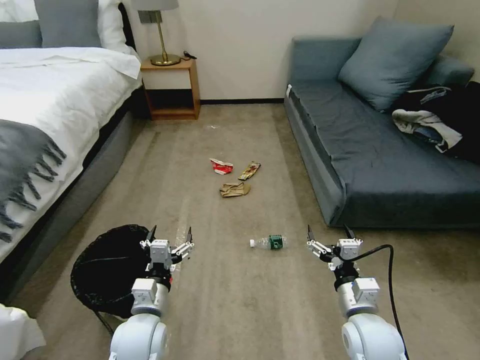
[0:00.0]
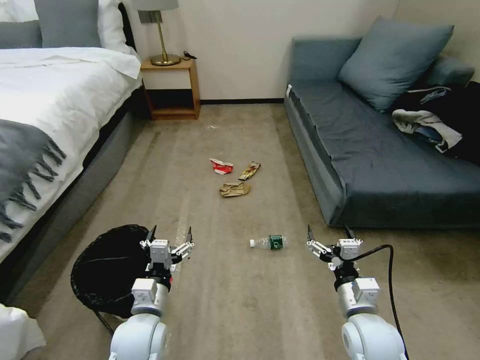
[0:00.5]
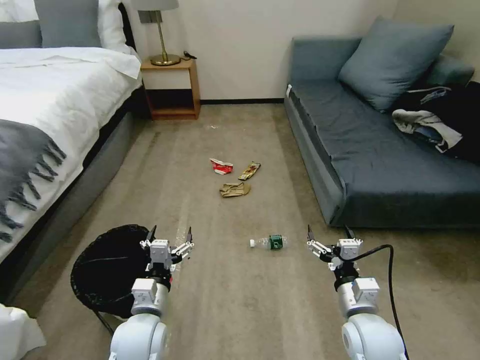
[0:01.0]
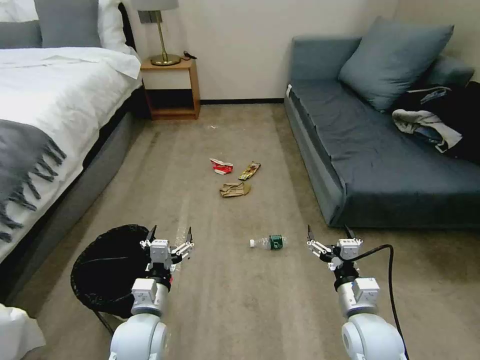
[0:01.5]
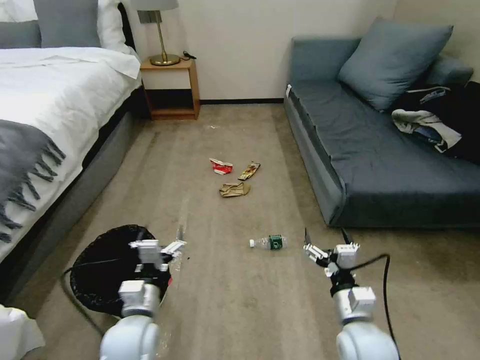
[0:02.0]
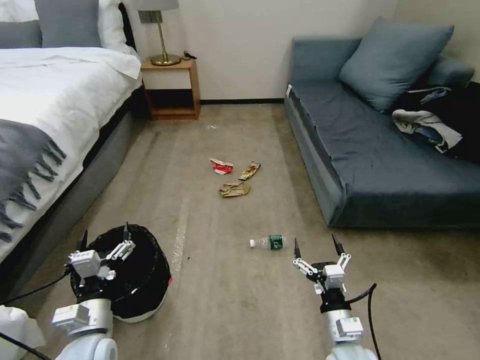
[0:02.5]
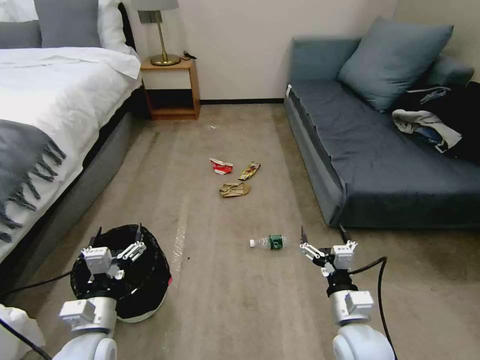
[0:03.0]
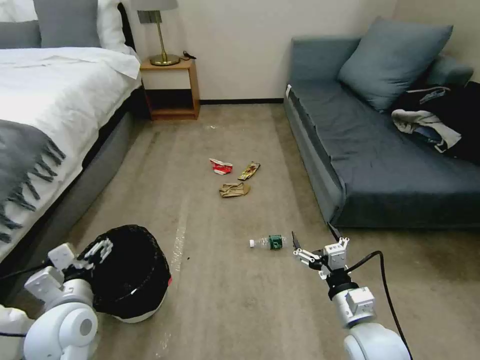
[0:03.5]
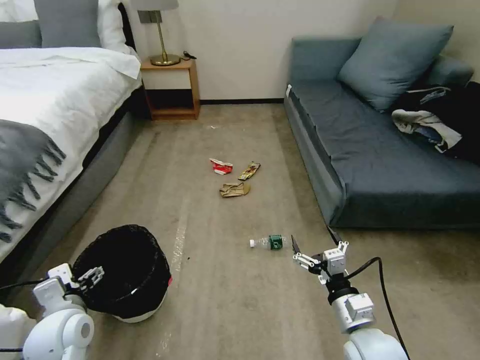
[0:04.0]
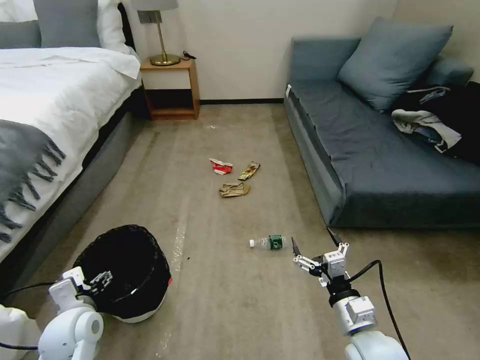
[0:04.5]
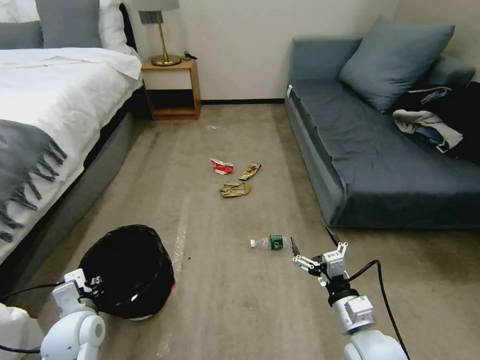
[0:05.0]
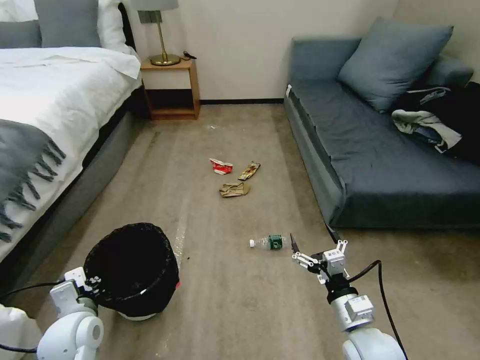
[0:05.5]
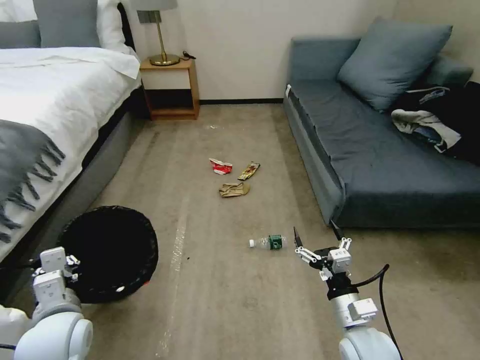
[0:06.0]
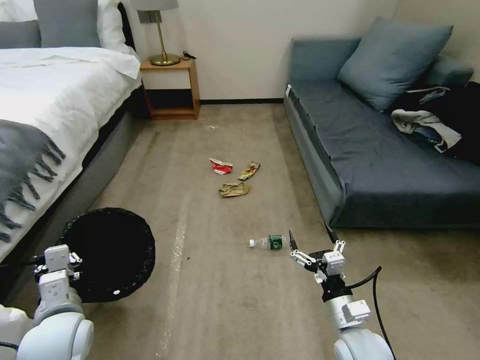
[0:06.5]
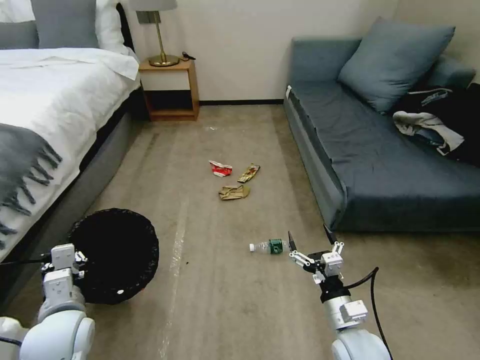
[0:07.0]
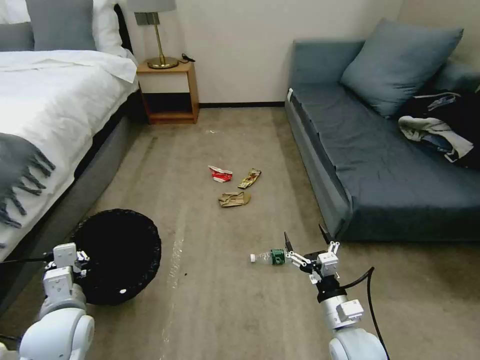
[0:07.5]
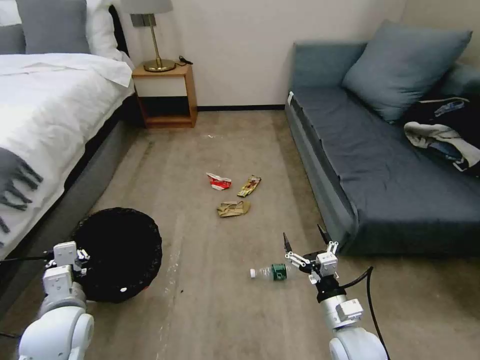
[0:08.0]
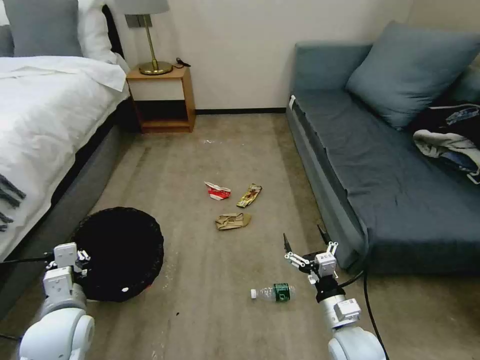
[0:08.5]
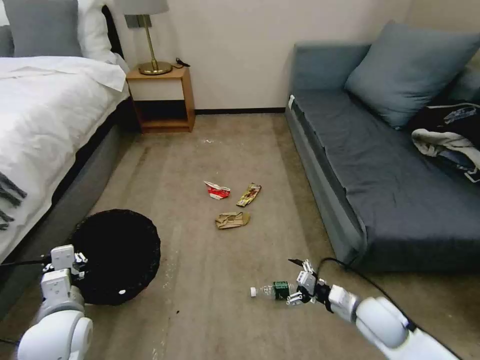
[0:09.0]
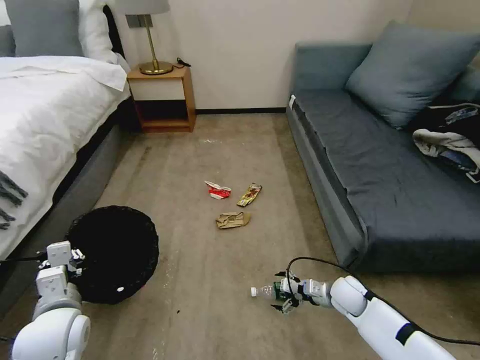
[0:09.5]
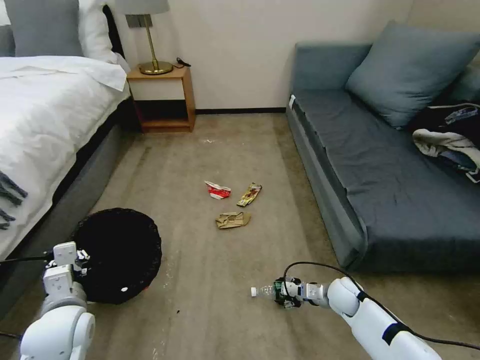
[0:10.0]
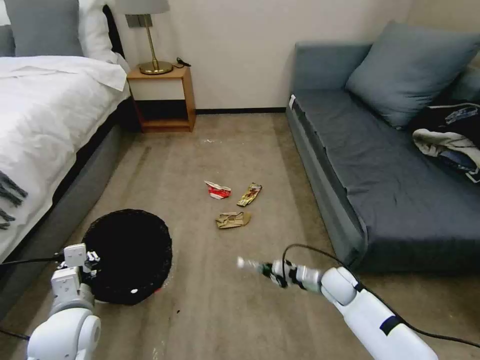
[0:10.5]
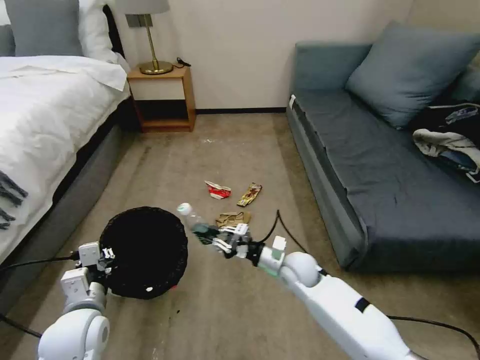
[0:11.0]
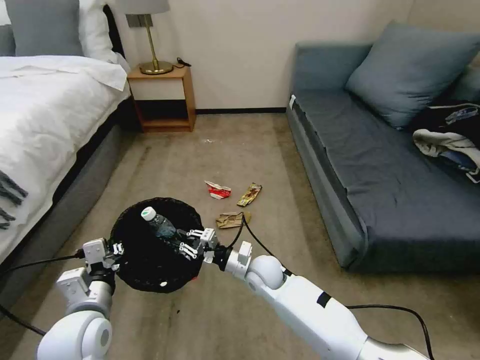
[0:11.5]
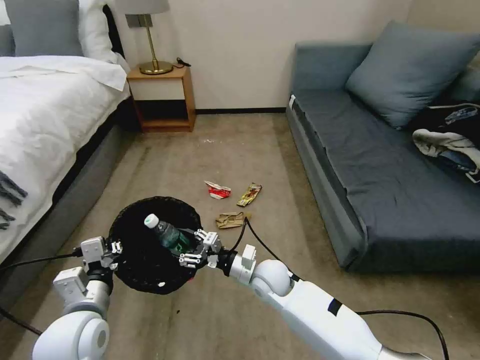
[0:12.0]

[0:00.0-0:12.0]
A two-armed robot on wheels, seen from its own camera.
Task of the whole recording: Pick up the trash bin, then pick up the garbage on the floor and place it into the trash bin.
0:02.0 to 0:04.0: The left gripper heads to the left, covering approximately 10 cm.
0:04.0 to 0:06.0: The left gripper closes up.
0:08.0 to 0:10.0: The right gripper goes about 20 cm forward, downward and to the right.
0:10.0 to 0:12.0: The right gripper travels to the left and upward by approximately 25 cm, and closes, then opens again.

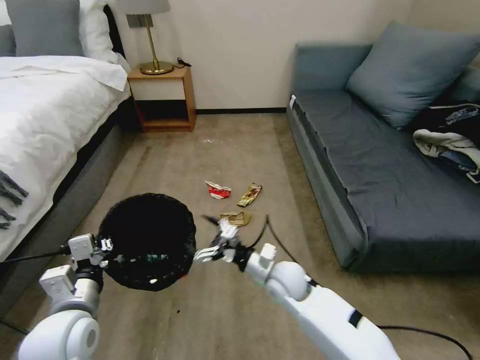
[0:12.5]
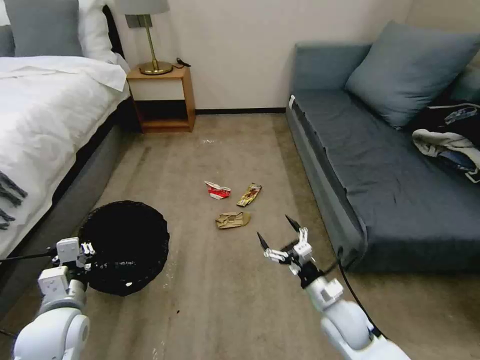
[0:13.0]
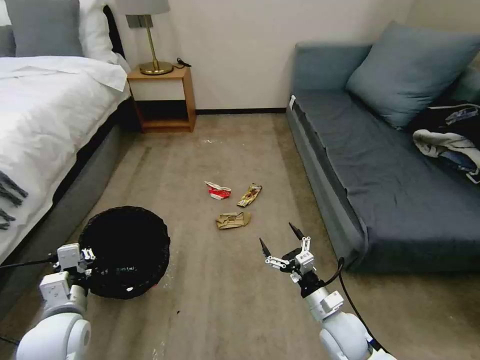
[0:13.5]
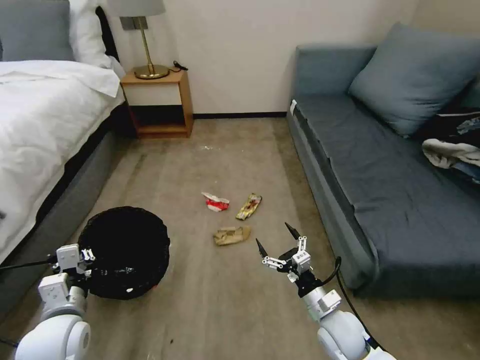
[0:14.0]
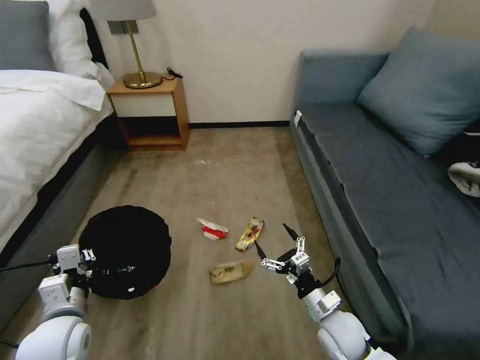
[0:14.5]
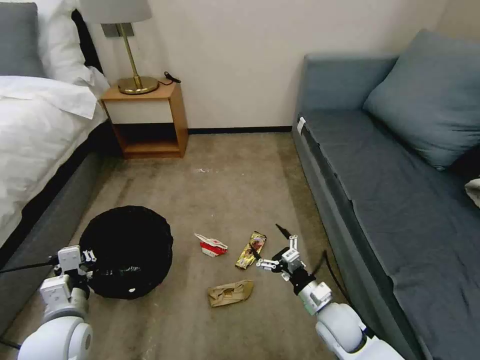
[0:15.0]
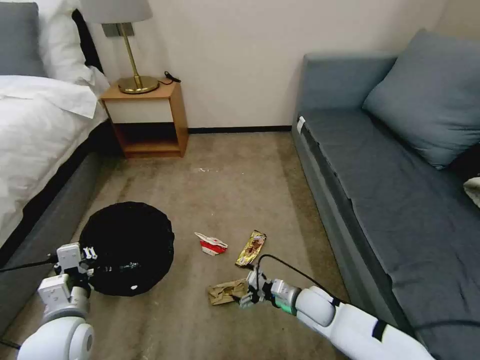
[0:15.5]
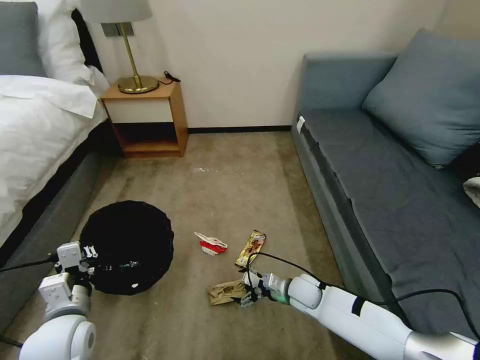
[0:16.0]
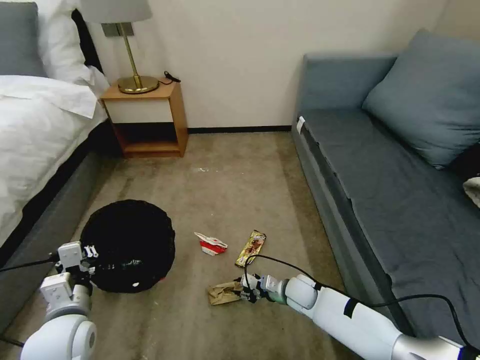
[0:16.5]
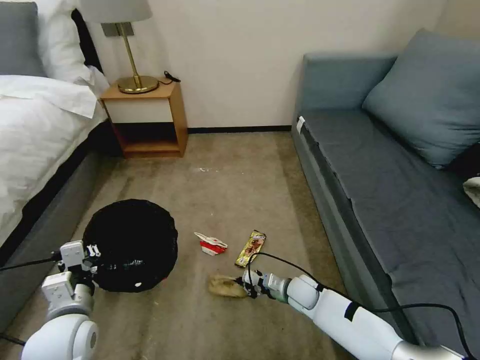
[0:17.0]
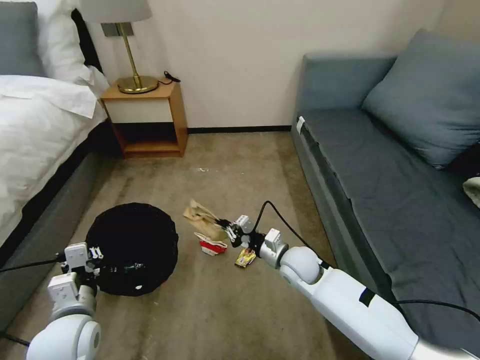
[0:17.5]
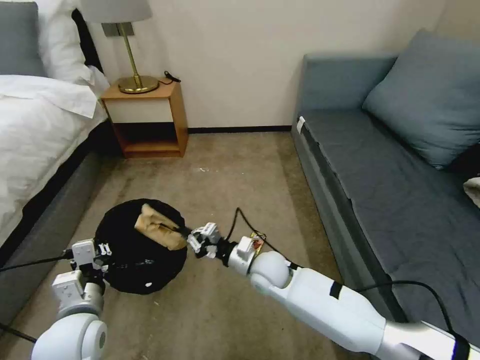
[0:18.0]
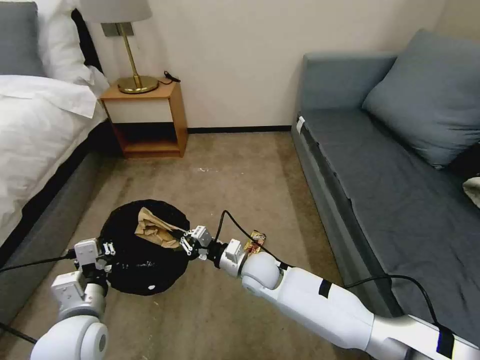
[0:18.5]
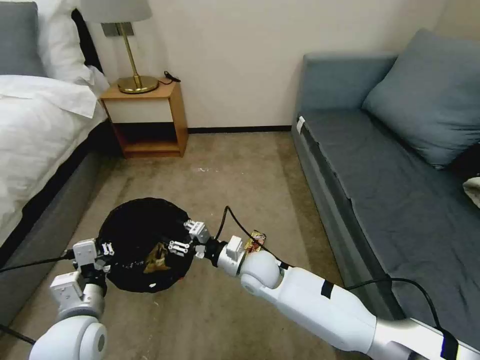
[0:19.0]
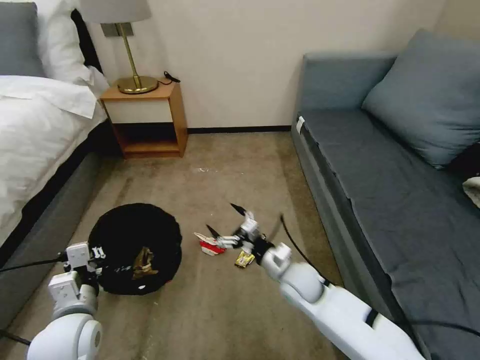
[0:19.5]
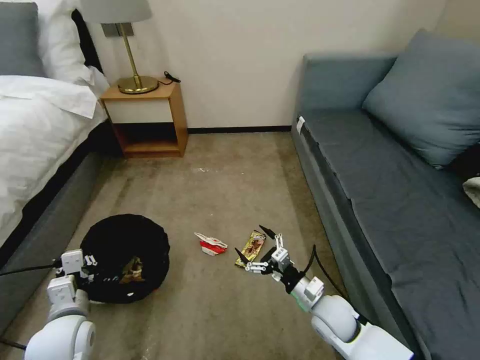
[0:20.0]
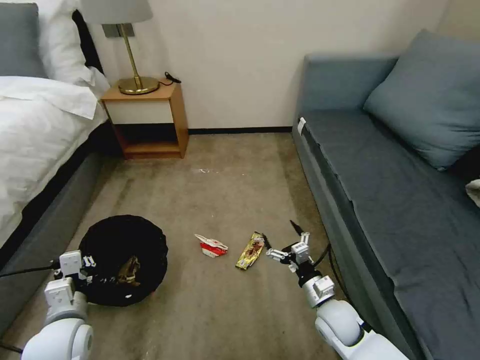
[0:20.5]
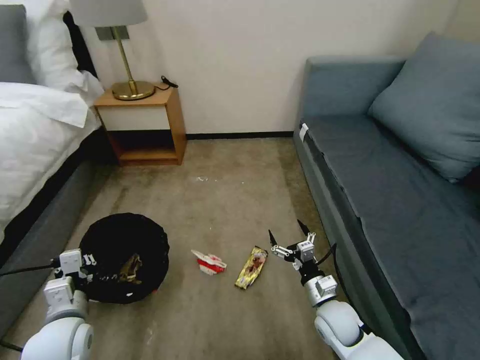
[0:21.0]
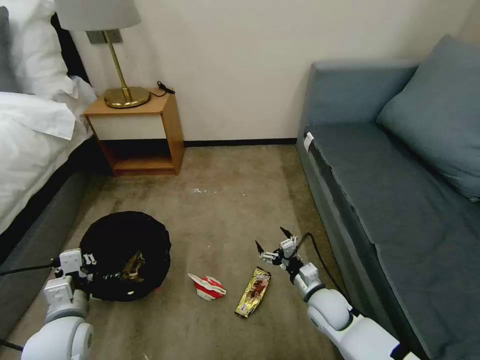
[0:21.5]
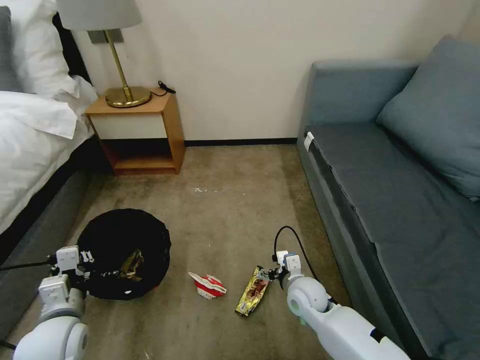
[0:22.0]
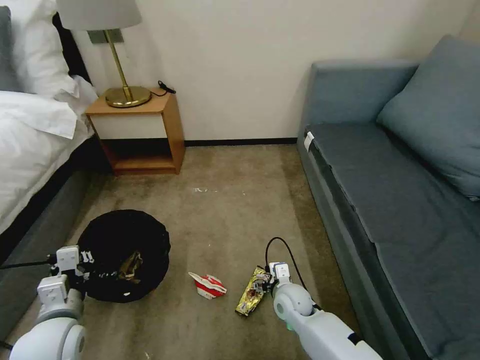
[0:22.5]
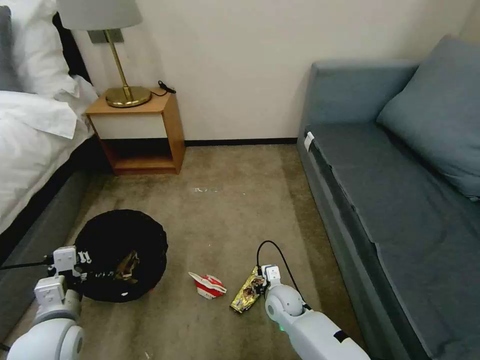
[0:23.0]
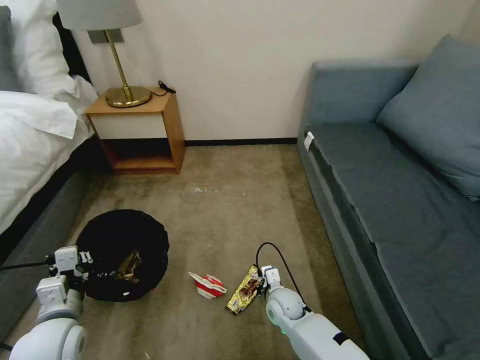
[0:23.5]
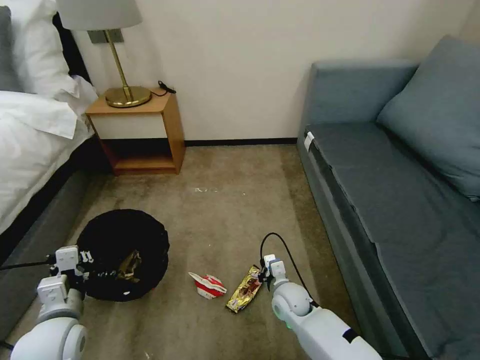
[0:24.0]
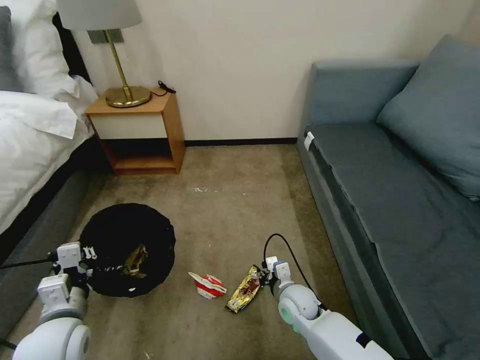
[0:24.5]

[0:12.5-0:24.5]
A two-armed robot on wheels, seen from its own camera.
Task of the whole recording: Pick up the trash bin, then pick up the garbage on the floor and place it into the trash bin.
0:12.5 to 0:14.5: The left gripper changes place by about 5 cm. The right gripper goes approximately 15 cm to the right and backward.
0:14.5 to 0:16.5: The right gripper is displaced forward and downward by about 15 cm, and closes its fingers.
0:16.5 to 0:18.5: The right gripper is displaced to the left and upward by some 20 cm, and closes up.
0:18.5 to 0:20.5: The right gripper is displaced to the right and backward by some 20 cm, and opens its fingers. Meanwhile the left gripper shifts some 5 cm to the left.
0:20.5 to 0:22.5: The right gripper heads to the left and forward, covering some 10 cm.
0:22.5 to 0:24.5: The right gripper closes.

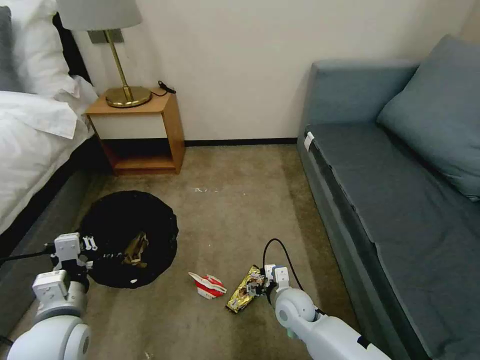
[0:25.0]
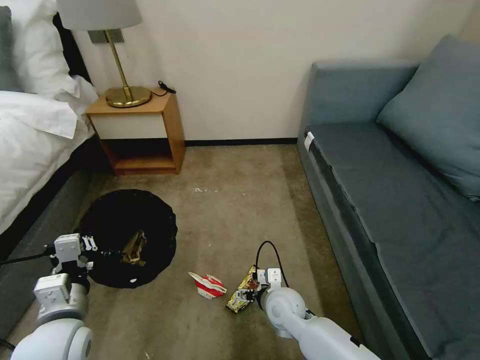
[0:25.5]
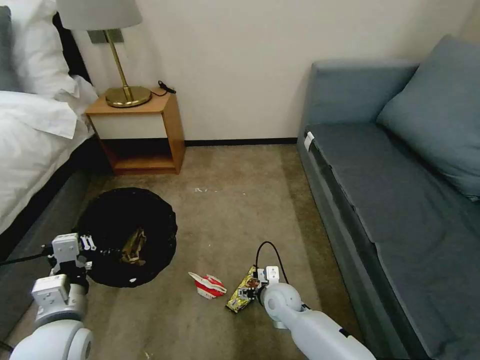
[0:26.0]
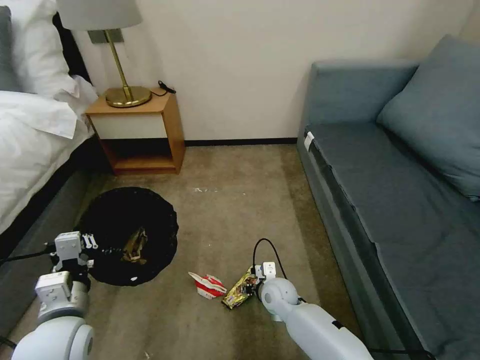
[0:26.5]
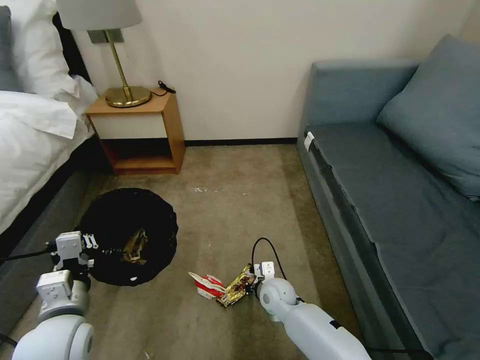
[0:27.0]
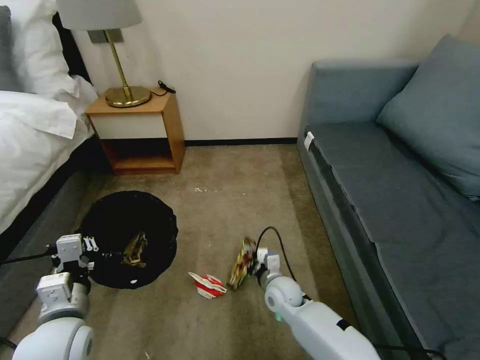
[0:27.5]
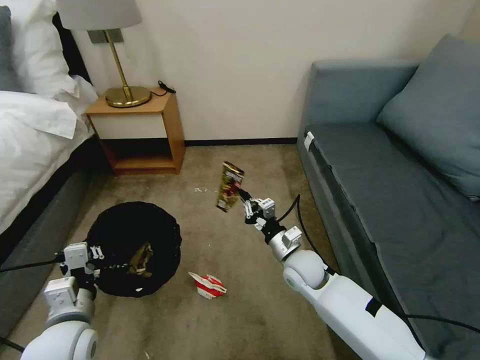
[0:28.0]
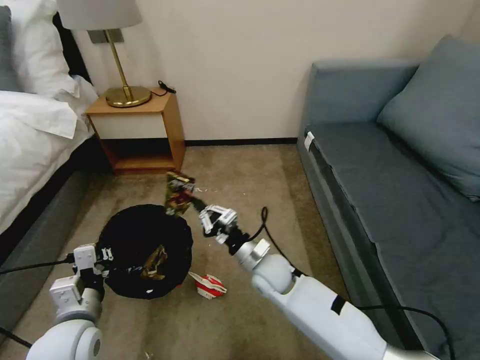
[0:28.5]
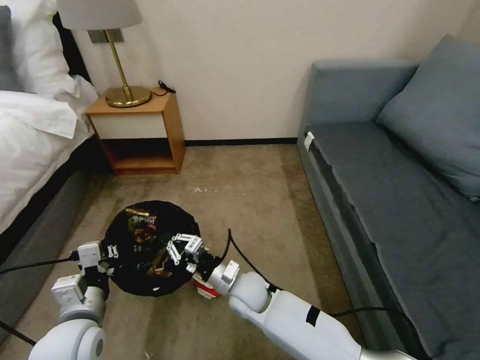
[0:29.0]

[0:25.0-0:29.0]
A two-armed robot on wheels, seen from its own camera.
Task of the whole recording: Pick up the trash bin, then pick up the garbage on the floor and place it into the trash bin.
0:25.0 to 0:27.0: The right gripper shifts by some 5 cm, and closes up.
0:27.0 to 0:29.0: The right gripper travels to the left and upward by approximately 10 cm.
